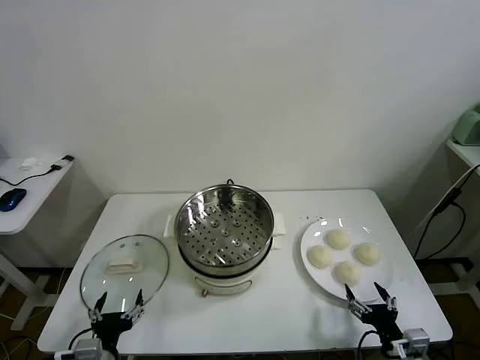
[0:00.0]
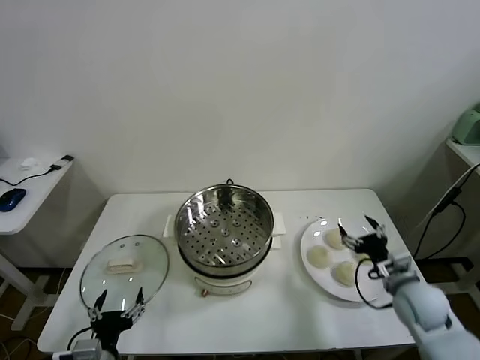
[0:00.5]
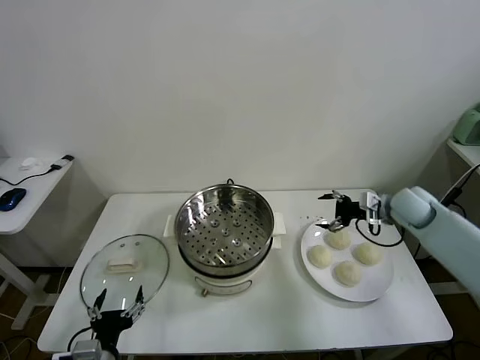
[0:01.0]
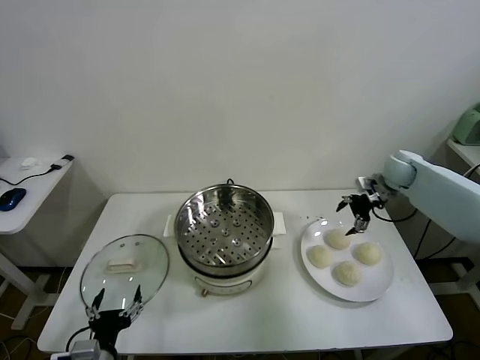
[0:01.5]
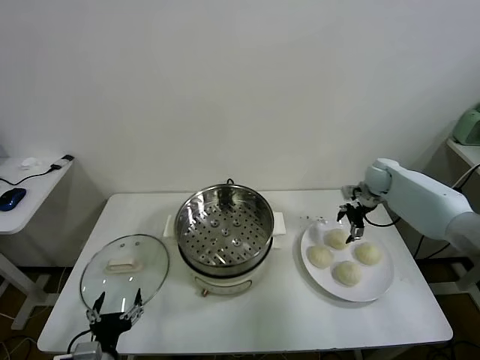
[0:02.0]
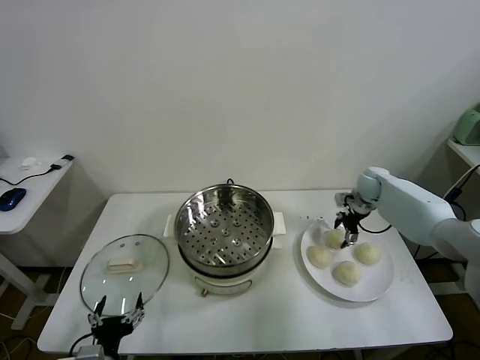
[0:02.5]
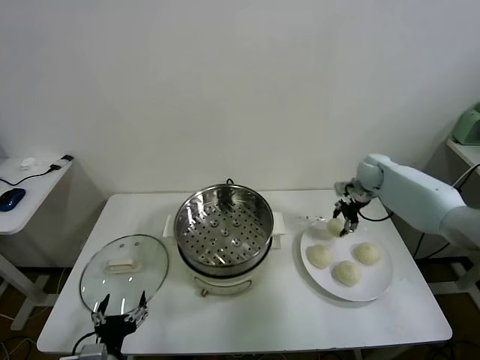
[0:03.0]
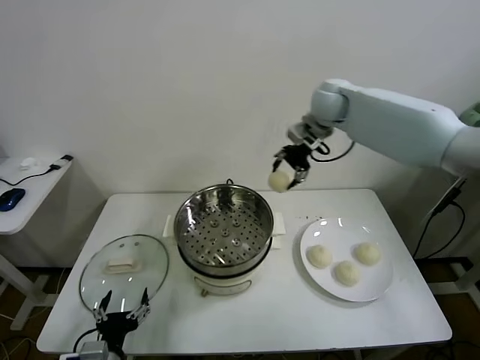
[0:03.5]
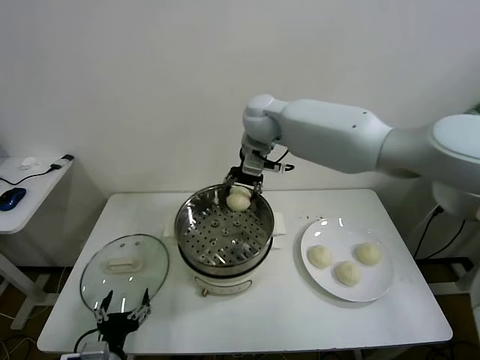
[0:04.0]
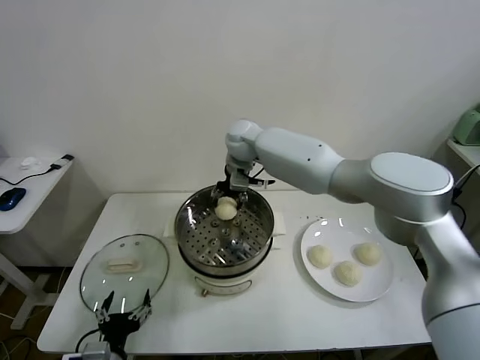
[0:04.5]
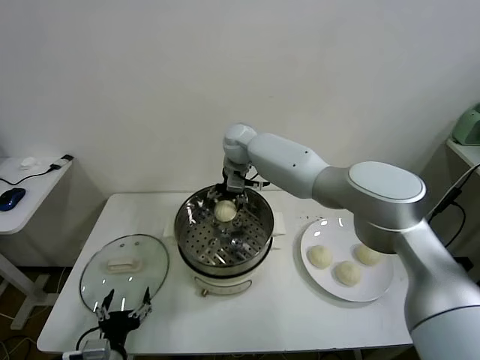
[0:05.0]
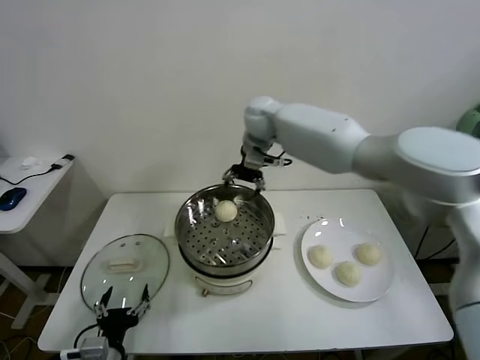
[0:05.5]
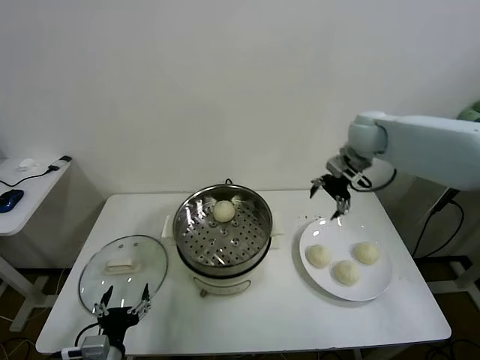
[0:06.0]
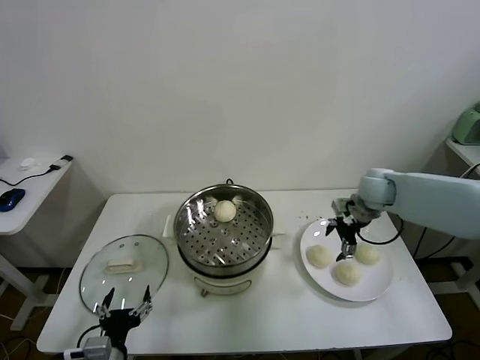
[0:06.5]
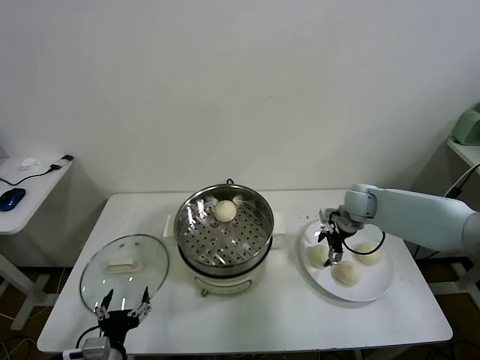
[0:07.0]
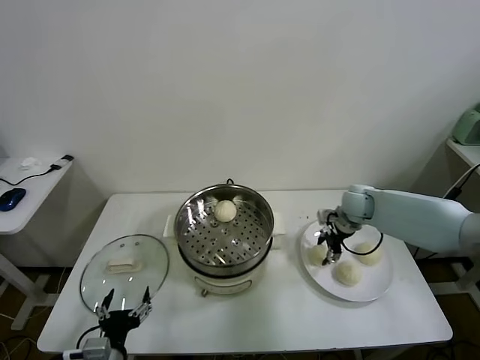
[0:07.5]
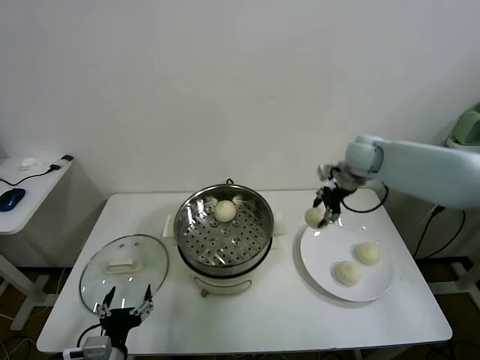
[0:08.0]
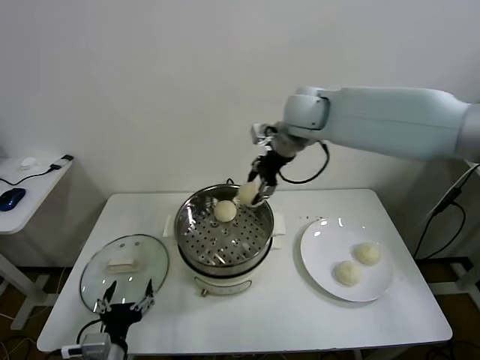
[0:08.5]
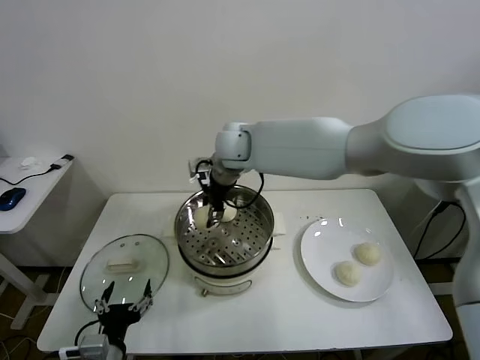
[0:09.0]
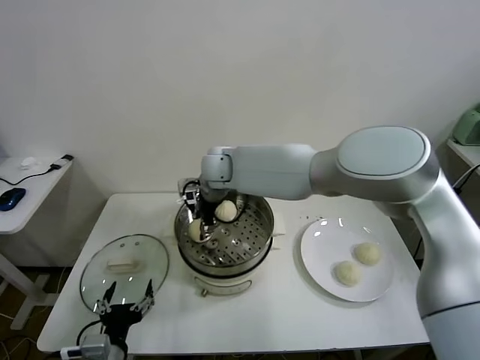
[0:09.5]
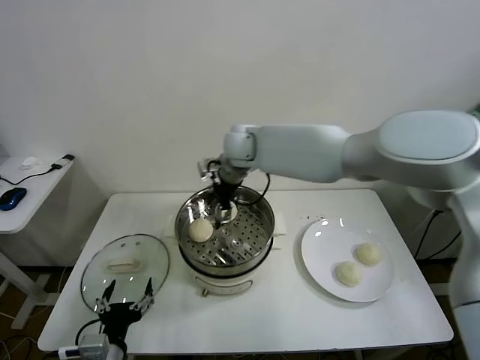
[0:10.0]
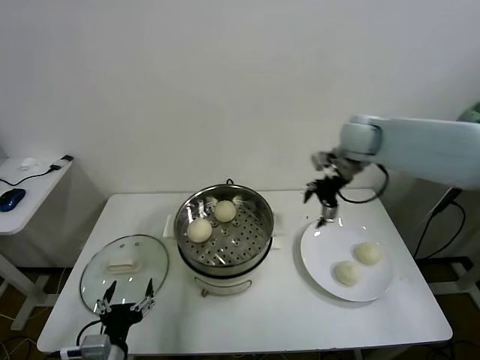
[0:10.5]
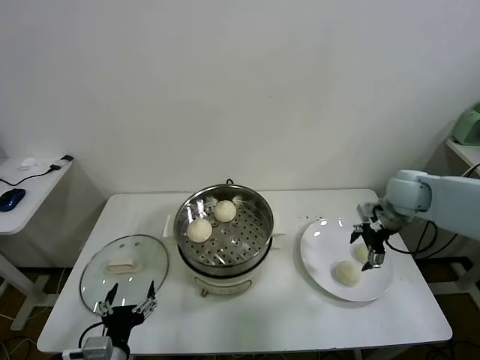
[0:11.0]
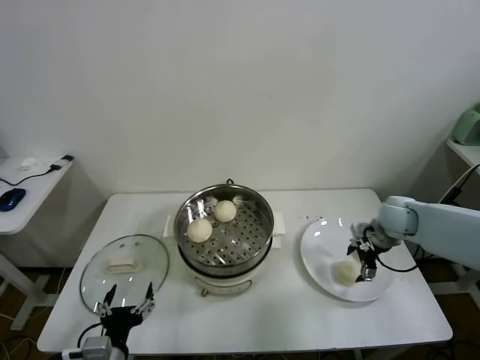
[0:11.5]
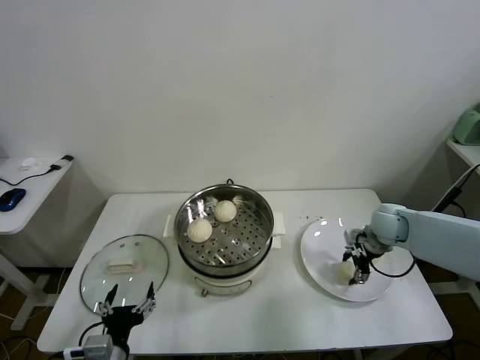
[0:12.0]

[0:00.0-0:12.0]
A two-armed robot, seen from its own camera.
Task of the whole recording: take steamed baozi put them in steamer.
Step, 0:00.0 to 0:02.5: Grasp the baozi in the plate with right gripper.
Step, 0:03.0 to 0:05.0: Place the baozi on the steamer with right gripper.
Step, 0:05.5 to 0:07.0: Grasp the baozi in the plate with right gripper.
Step, 0:07.5 to 0:09.5: Place the baozi on the steamer with right gripper.
0:02.0 to 0:04.0: The right gripper goes approximately 40 cm to the left and upward, and closes up.
0:04.0 to 0:06.0: The right gripper moves to the right, about 25 cm, and opens.
0:06.0 to 0:08.0: The right gripper goes downward and returns, about 15 cm each way, and closes its fingers.
0:08.0 to 0:10.0: The right gripper shifts about 25 cm to the left, and opens its fingers.
0:10.0 to 0:12.0: The right gripper is displaced to the right and downward by some 40 cm, and closes up.

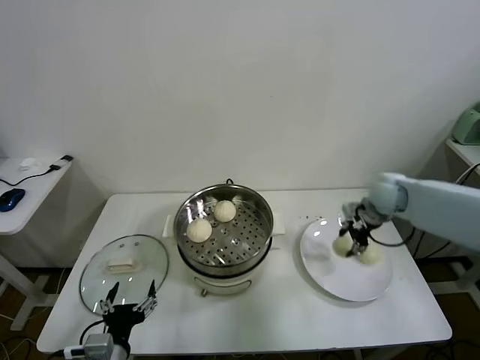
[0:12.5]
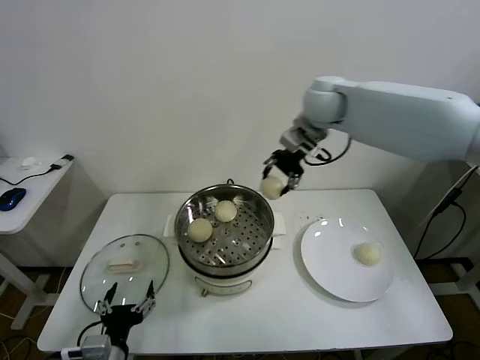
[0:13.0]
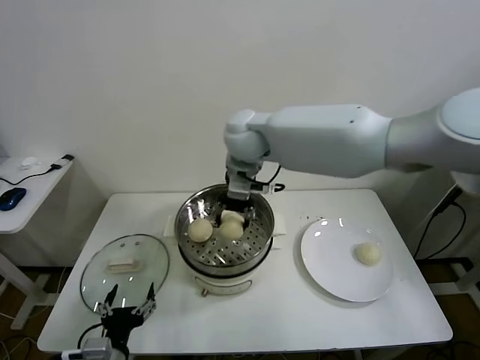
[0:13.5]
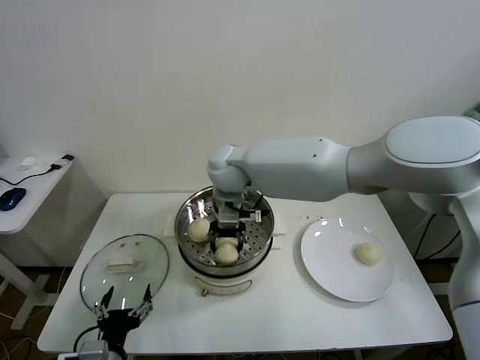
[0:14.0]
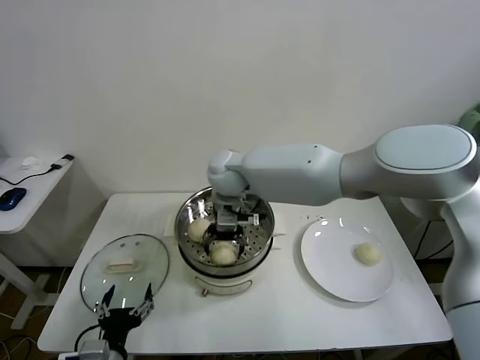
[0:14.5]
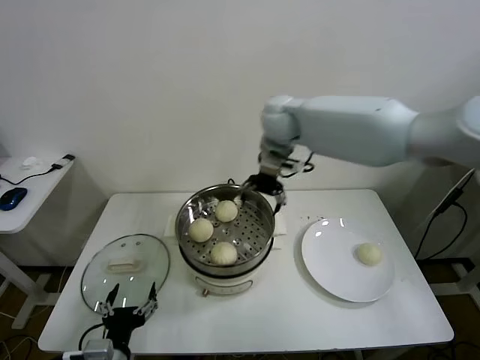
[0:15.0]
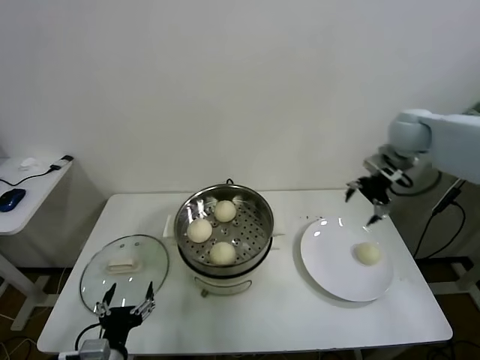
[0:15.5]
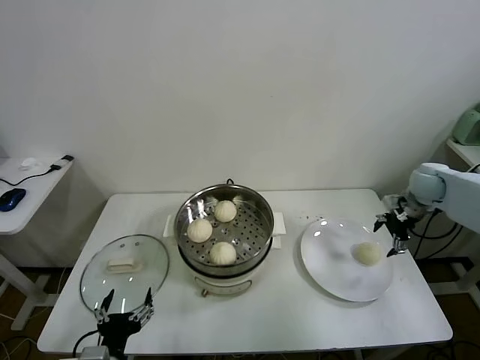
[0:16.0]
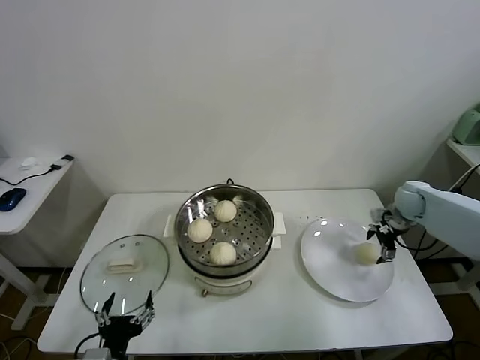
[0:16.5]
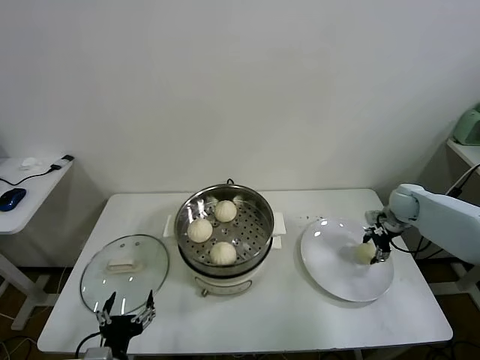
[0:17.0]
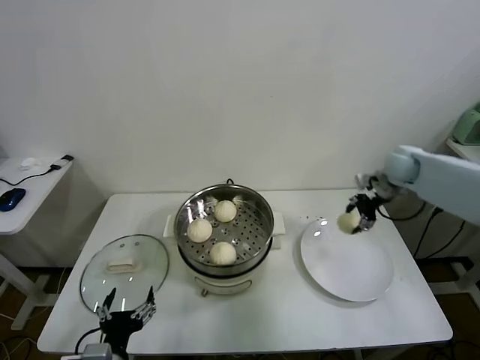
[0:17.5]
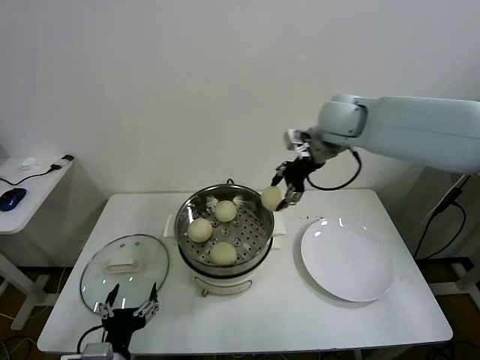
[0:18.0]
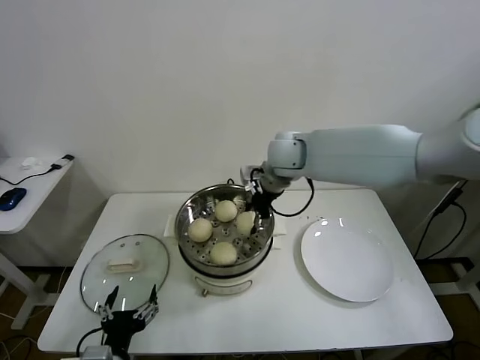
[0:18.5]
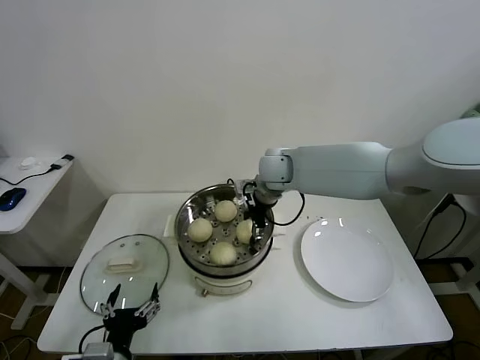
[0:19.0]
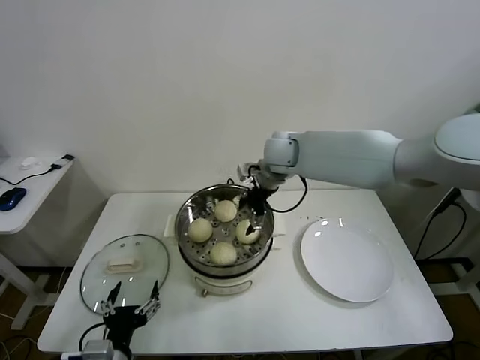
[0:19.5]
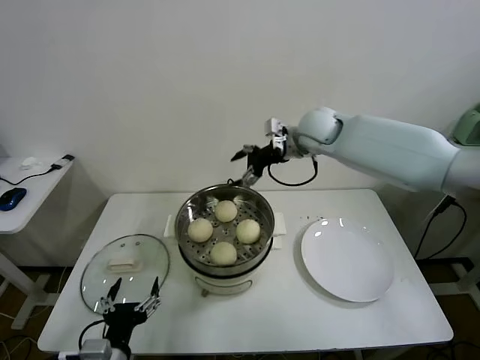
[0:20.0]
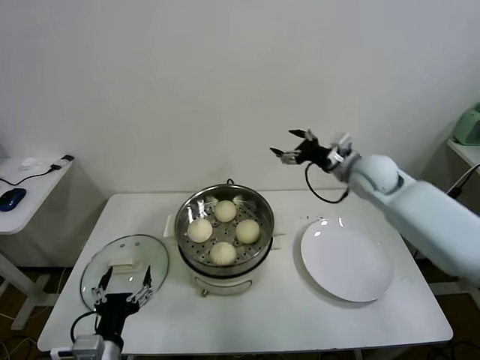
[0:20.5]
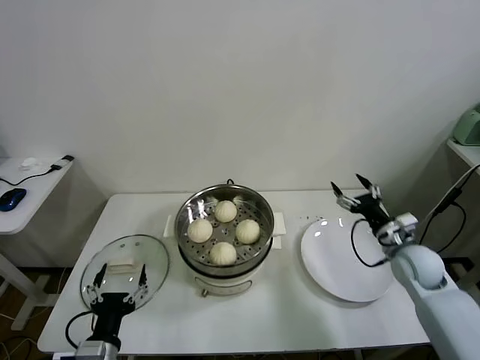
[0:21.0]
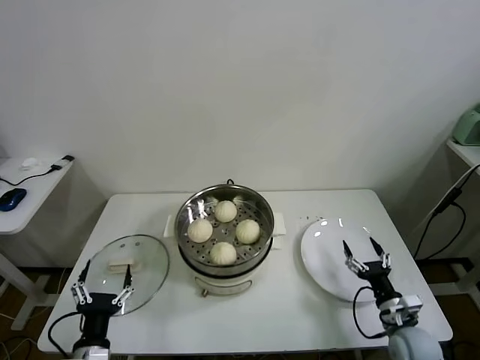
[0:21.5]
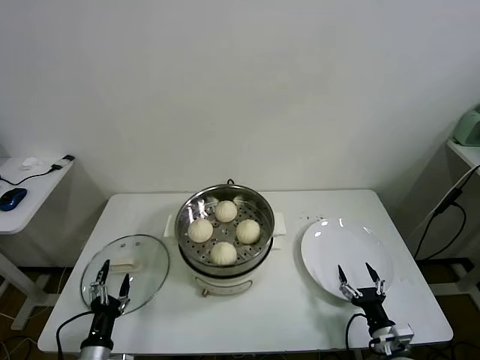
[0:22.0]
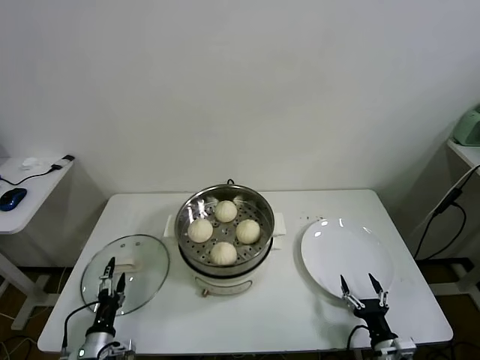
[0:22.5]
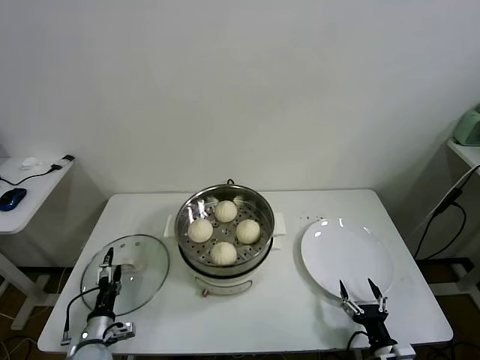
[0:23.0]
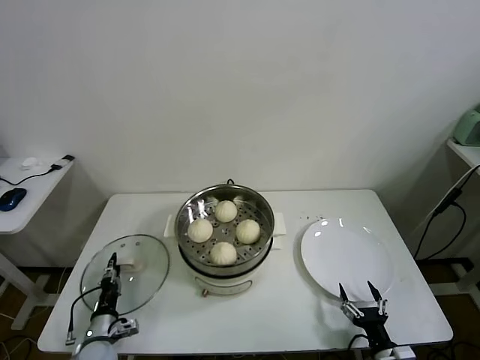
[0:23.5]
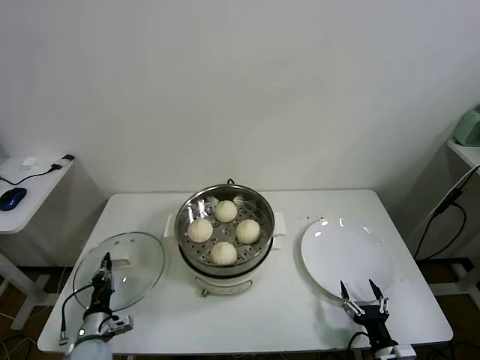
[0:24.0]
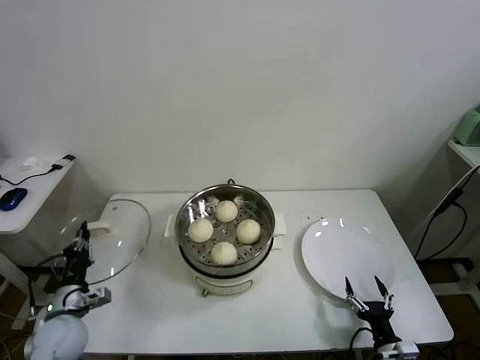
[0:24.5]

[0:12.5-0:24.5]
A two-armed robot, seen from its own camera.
Task of the whole recording: take steamed baozi put them in steamer.
Step, 0:12.5 to 0:14.5: Place the baozi on the steamer with right gripper.
Step, 0:15.0 to 0:17.0: Grasp the baozi in the plate with right gripper.
Step, 0:17.5 to 0:19.0: Place the baozi on the steamer with right gripper.
Step, 0:19.5 to 0:23.5: Grasp the pot lid with left gripper.
0:12.5 to 0:14.5: The right gripper heads to the left, covering some 40 cm, and opens.
0:14.5 to 0:16.5: The right gripper heads to the right, covering roughly 50 cm.
0:16.5 to 0:18.5: The right gripper goes roughly 40 cm to the left and upward, and closes up.
0:18.5 to 0:20.5: The right gripper shifts about 20 cm to the right, and opens its fingers.
0:20.5 to 0:22.5: The right gripper is displaced backward and downward by approximately 50 cm. The left gripper heads downward and to the left, covering roughly 20 cm.
0:22.5 to 0:24.5: The left gripper goes roughly 10 cm upward and forward, and closes up.

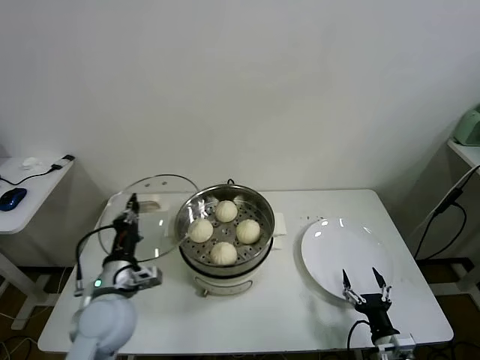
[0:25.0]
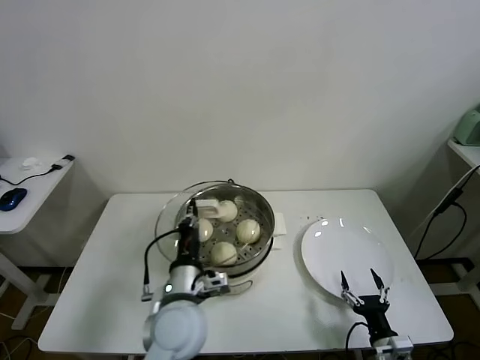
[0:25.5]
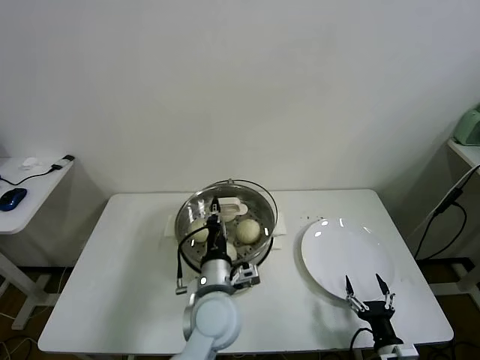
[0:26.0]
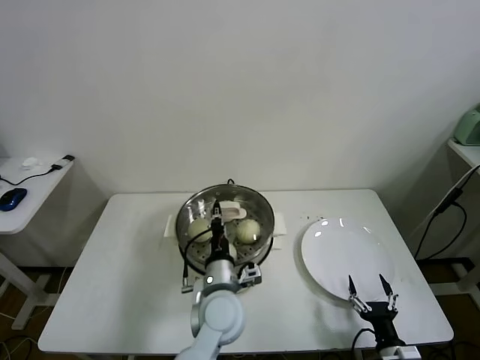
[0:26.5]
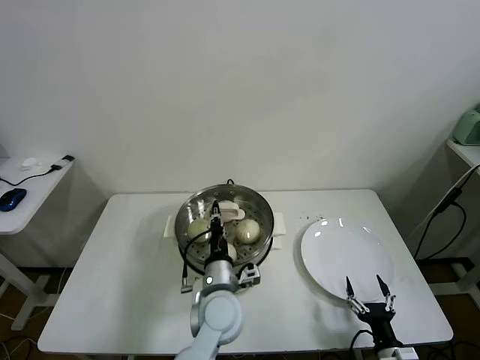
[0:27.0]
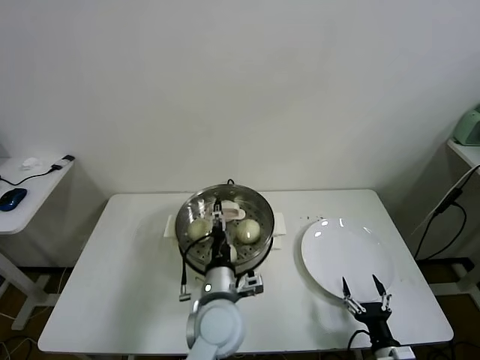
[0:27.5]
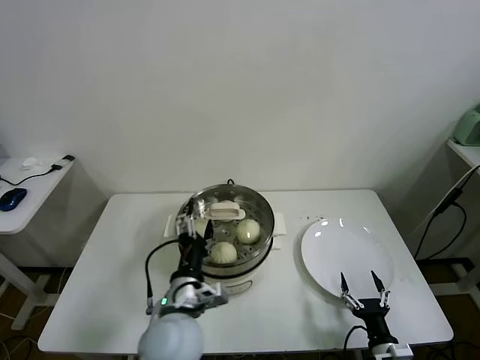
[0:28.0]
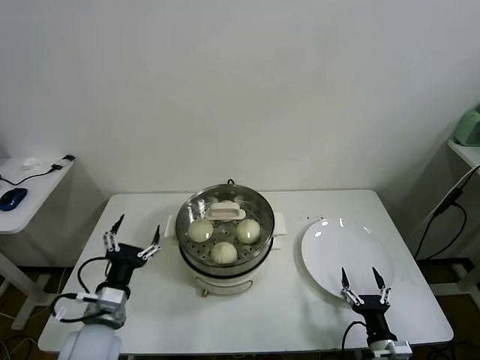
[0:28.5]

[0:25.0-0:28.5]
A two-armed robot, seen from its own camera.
Task of the whole recording: take steamed baozi put them in steamer.
Step, 0:25.0 to 0:27.5: Place the pot lid on the steamer with left gripper.
0:25.0 to 0:27.0: The left gripper travels to the right by approximately 25 cm.
0:27.0 to 0:28.5: The left gripper goes roughly 20 cm to the left, and opens.
